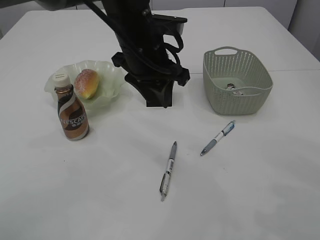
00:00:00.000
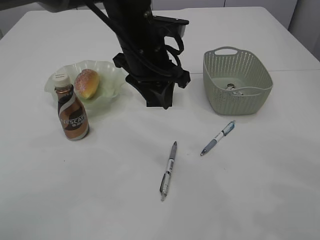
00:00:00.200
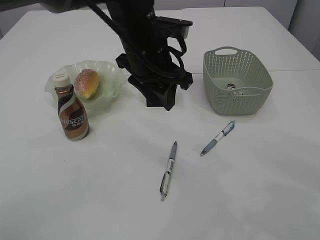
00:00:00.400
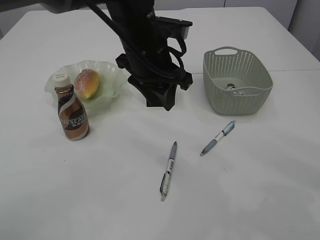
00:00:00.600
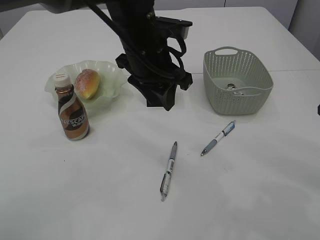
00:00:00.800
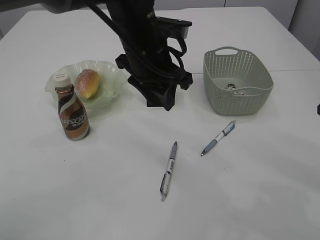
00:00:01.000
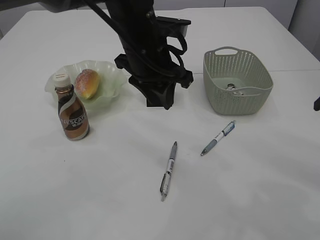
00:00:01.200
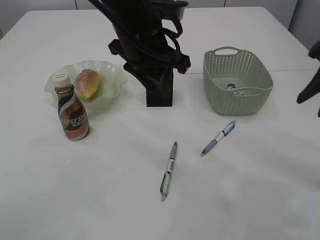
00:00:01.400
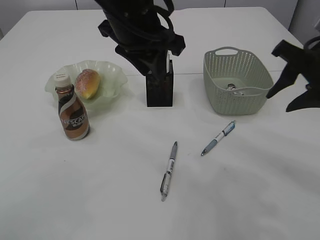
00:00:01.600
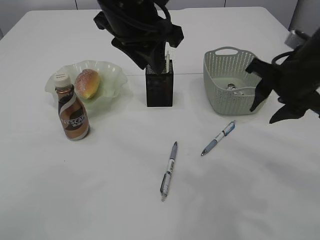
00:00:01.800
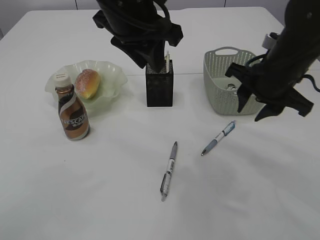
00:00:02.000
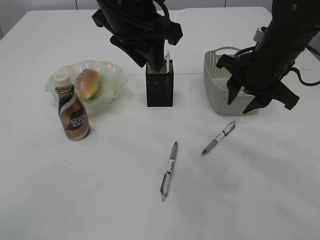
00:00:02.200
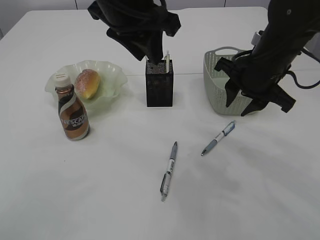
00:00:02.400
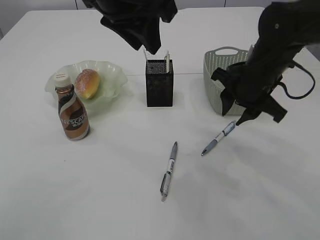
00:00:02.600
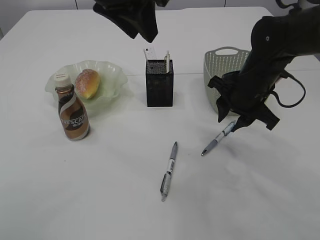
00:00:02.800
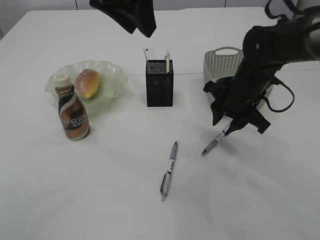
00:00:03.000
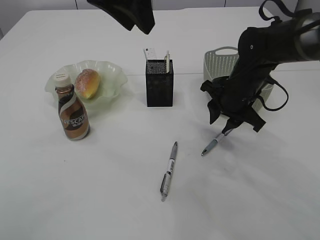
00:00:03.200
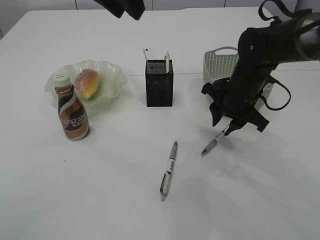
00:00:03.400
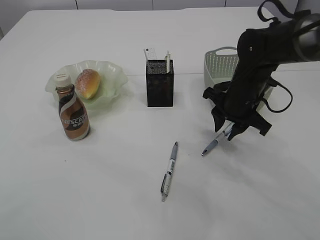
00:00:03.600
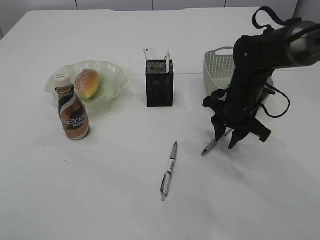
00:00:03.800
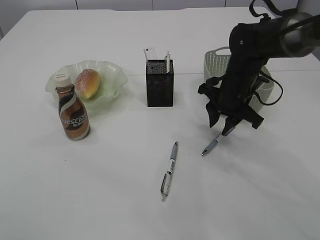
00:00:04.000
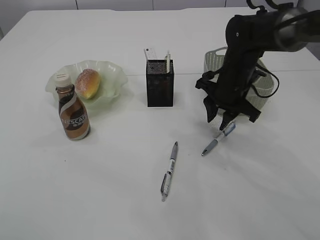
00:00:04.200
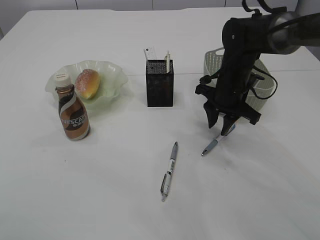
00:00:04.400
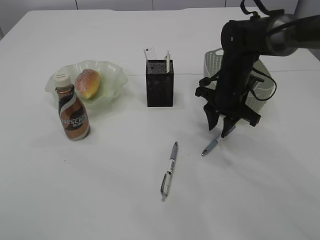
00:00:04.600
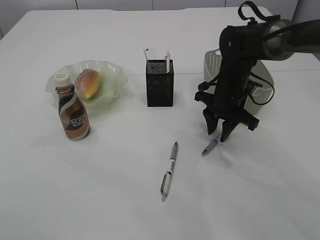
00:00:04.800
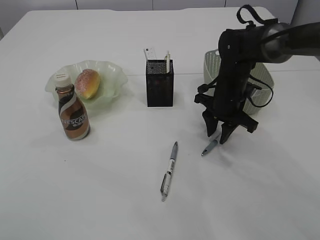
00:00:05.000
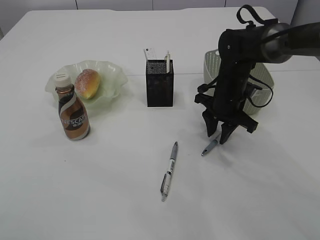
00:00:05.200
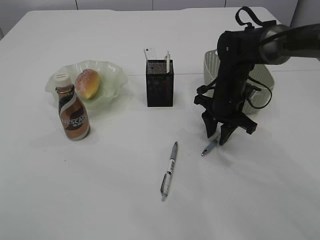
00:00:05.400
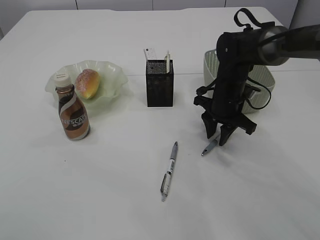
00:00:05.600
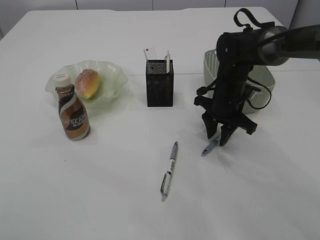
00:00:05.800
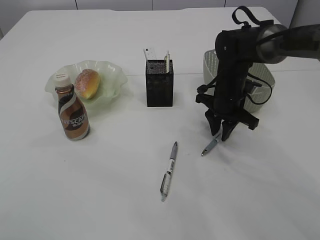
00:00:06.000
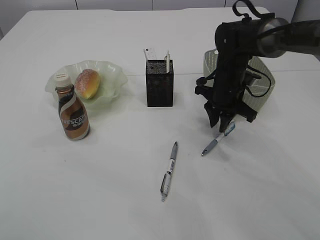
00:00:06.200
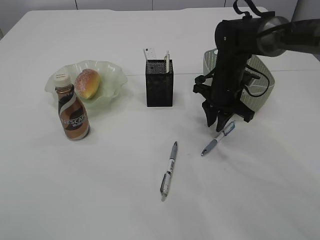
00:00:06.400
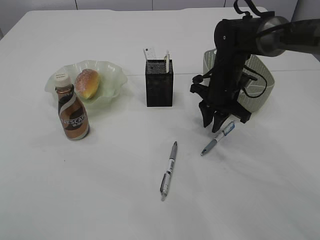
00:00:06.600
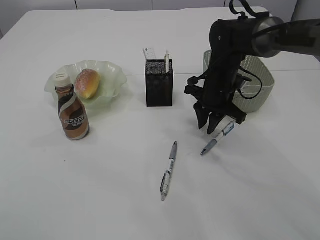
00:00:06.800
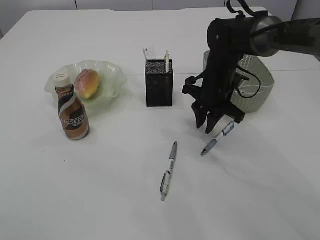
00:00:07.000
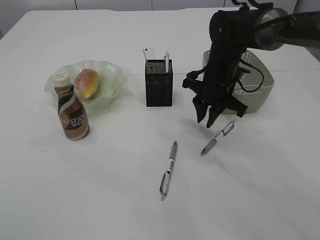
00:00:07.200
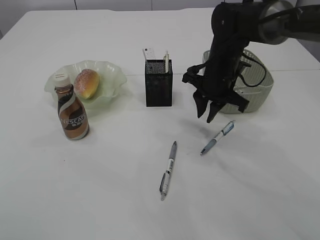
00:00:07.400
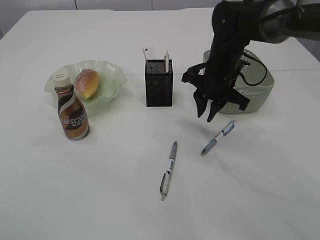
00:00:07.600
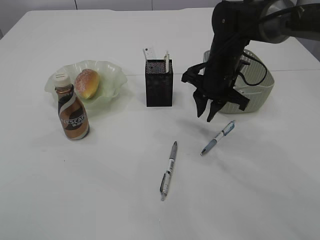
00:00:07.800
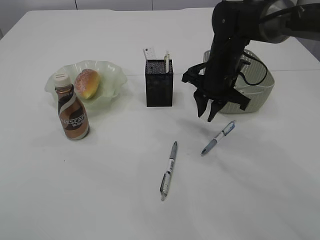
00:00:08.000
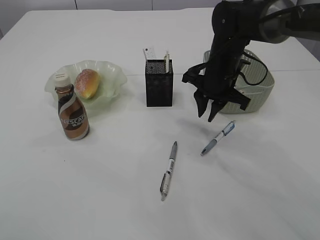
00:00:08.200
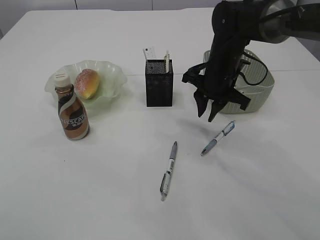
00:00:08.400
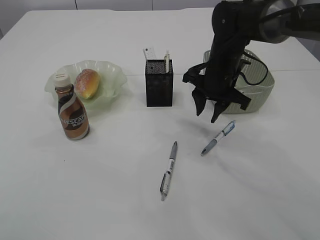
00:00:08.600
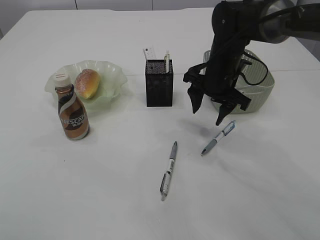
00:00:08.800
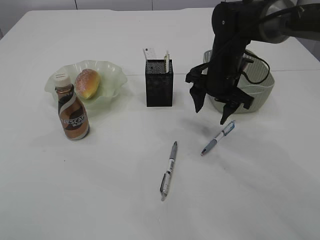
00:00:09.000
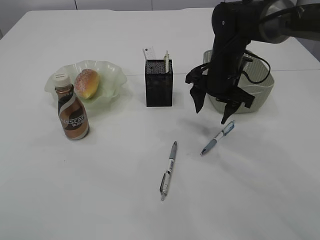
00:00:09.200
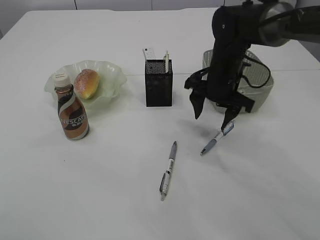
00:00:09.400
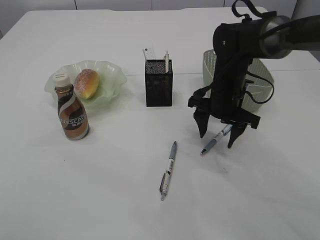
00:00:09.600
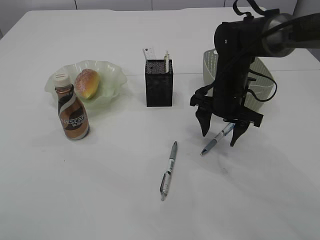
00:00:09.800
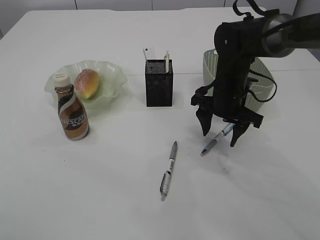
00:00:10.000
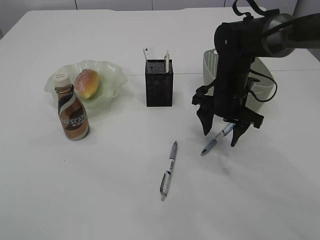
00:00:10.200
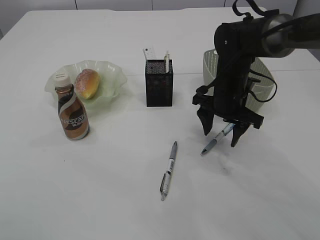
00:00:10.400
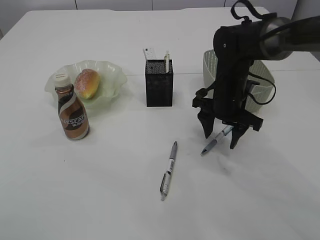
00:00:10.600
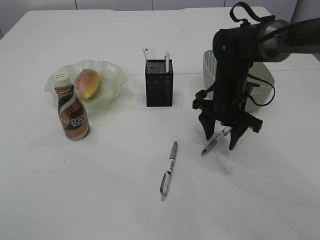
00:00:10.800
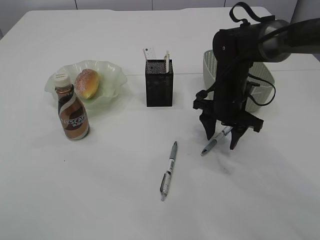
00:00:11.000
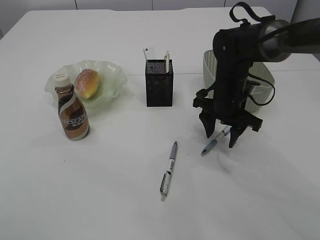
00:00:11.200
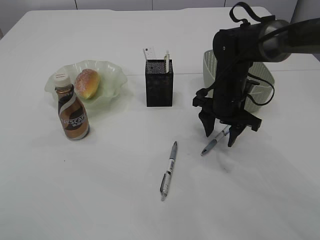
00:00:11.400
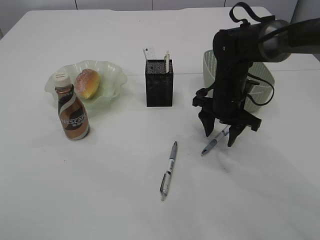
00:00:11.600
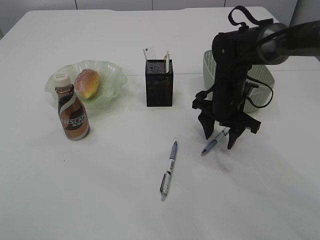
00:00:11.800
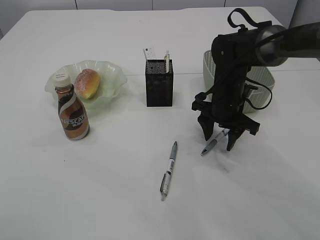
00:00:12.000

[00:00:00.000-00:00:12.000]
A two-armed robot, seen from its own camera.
00:00:00.000 to 00:00:01.600: The left gripper is displaced upward by approximately 5 cm; the right gripper moves to the left, some 10 cm.
00:00:01.600 to 00:00:03.000: The right gripper goes some 15 cm downward, to the left and forward. The left gripper travels upward by roughly 5 cm.
00:00:03.000 to 00:00:04.400: The left gripper moves upward and to the left, about 10 cm.
00:00:04.400 to 00:00:06.000: There are only small adjustments of the grippers.
00:00:06.000 to 00:00:07.600: The right gripper shifts about 5 cm upward.
00:00:07.600 to 00:00:09.000: The right gripper opens.
00:00:09.000 to 00:00:12.000: There are only small adjustments of the grippers.

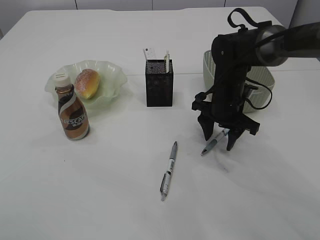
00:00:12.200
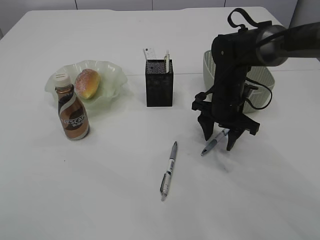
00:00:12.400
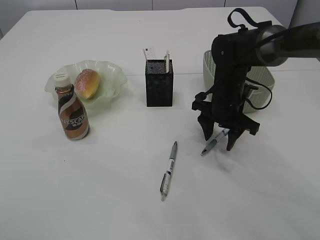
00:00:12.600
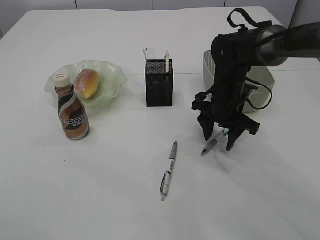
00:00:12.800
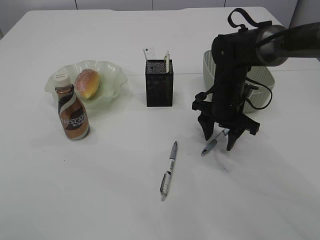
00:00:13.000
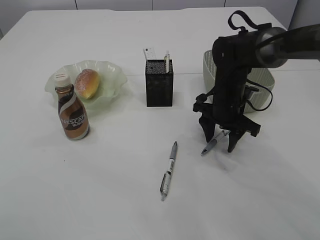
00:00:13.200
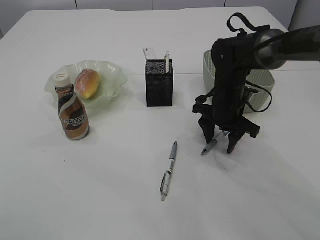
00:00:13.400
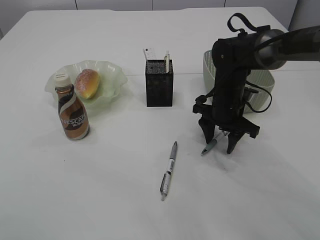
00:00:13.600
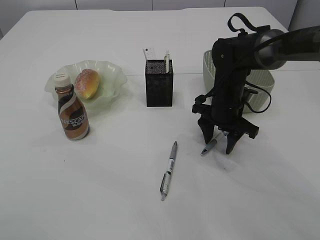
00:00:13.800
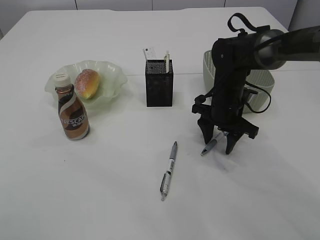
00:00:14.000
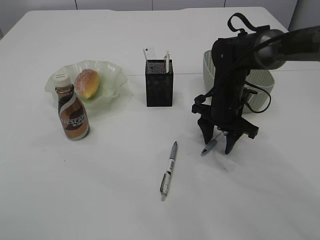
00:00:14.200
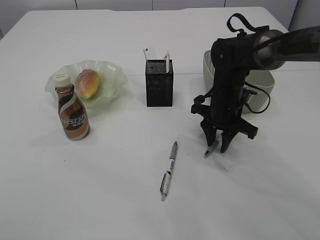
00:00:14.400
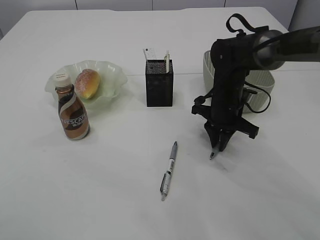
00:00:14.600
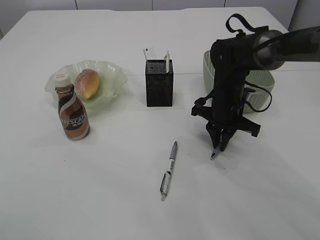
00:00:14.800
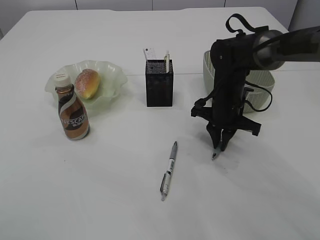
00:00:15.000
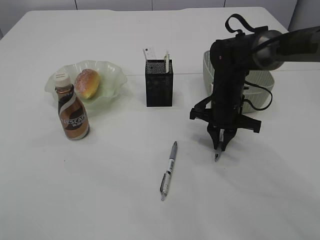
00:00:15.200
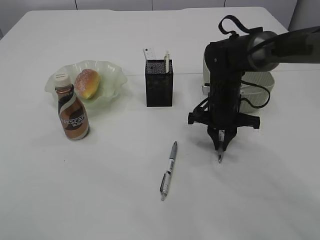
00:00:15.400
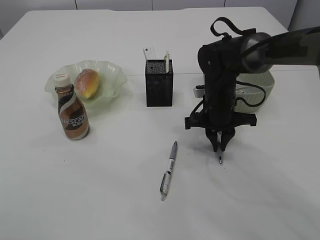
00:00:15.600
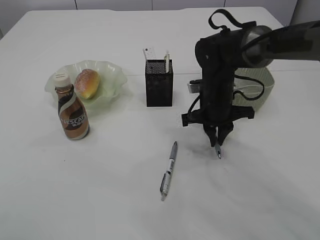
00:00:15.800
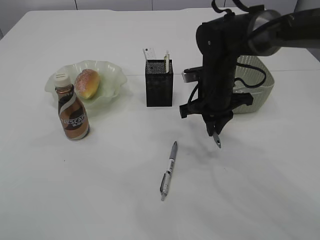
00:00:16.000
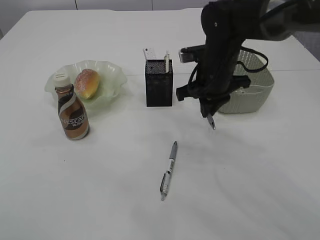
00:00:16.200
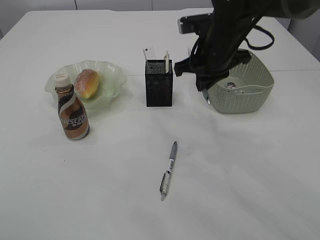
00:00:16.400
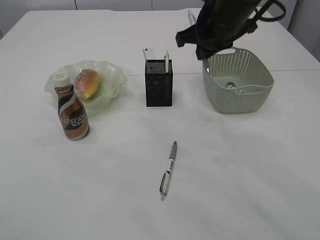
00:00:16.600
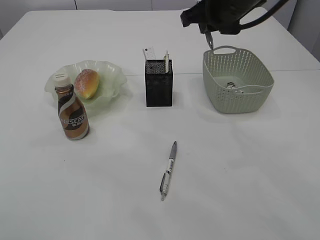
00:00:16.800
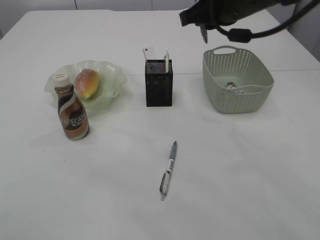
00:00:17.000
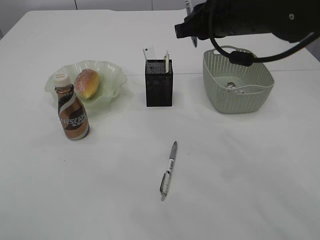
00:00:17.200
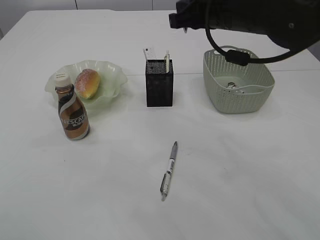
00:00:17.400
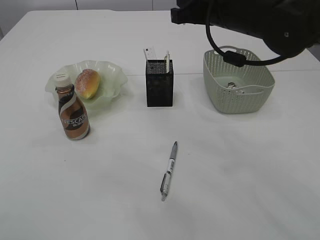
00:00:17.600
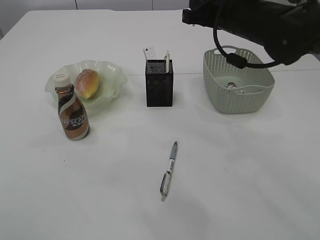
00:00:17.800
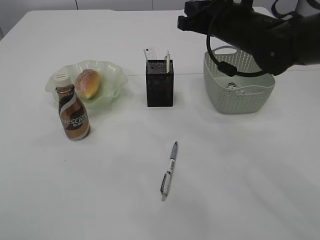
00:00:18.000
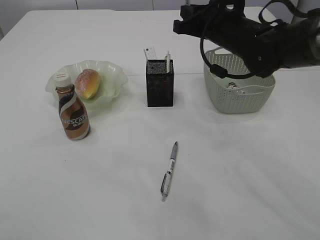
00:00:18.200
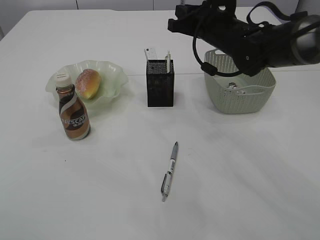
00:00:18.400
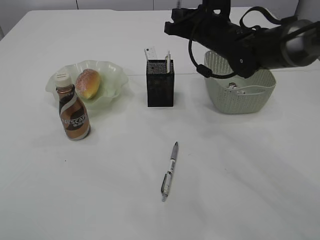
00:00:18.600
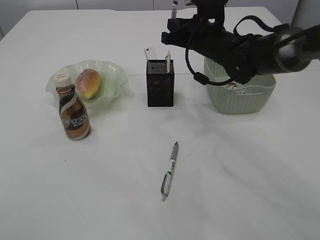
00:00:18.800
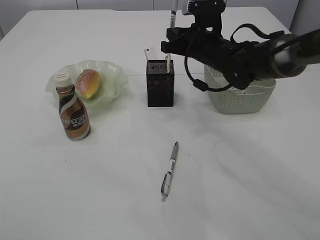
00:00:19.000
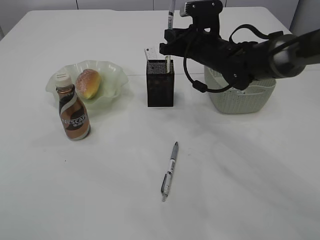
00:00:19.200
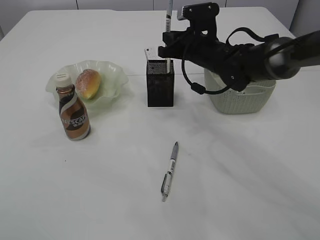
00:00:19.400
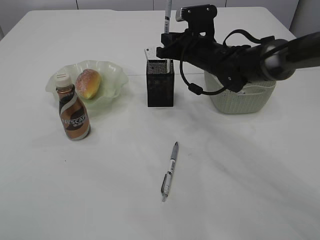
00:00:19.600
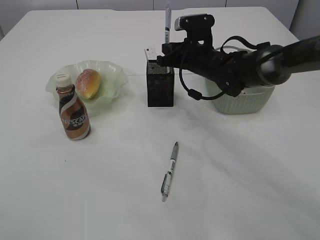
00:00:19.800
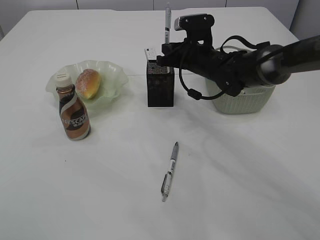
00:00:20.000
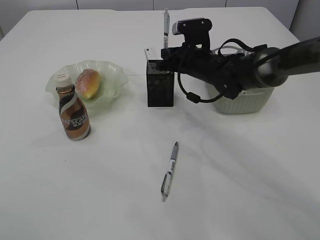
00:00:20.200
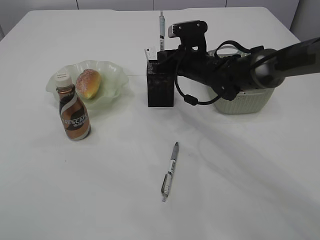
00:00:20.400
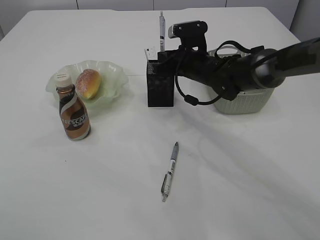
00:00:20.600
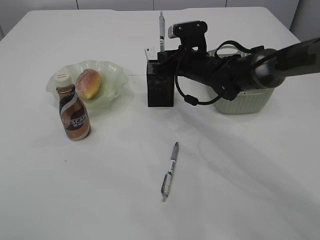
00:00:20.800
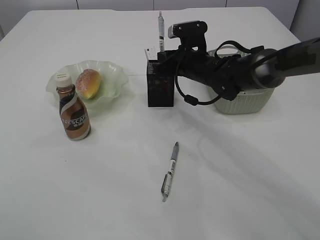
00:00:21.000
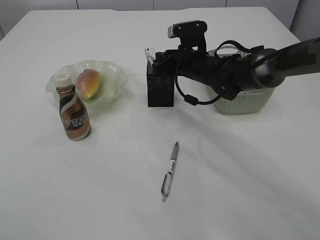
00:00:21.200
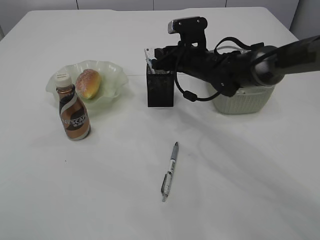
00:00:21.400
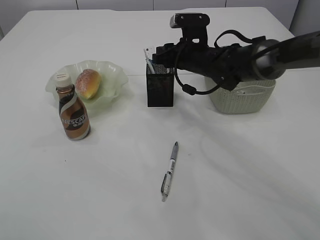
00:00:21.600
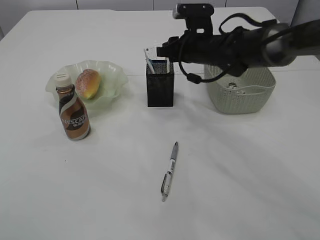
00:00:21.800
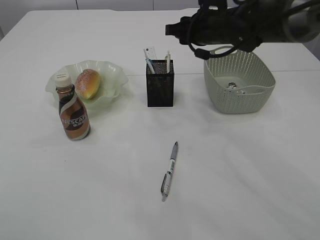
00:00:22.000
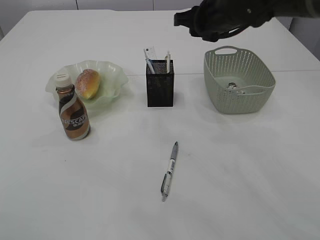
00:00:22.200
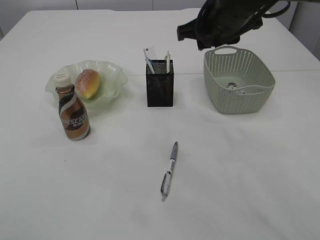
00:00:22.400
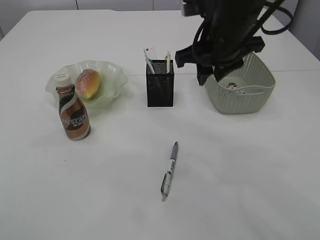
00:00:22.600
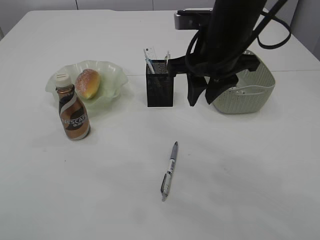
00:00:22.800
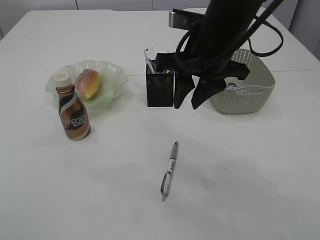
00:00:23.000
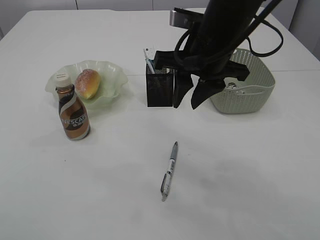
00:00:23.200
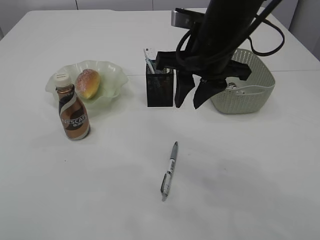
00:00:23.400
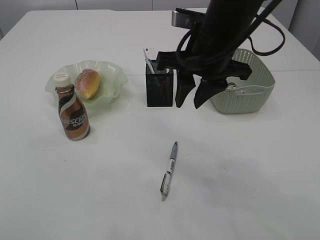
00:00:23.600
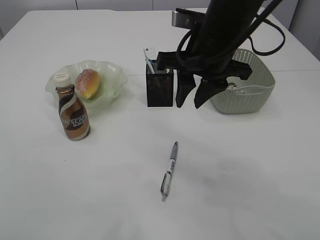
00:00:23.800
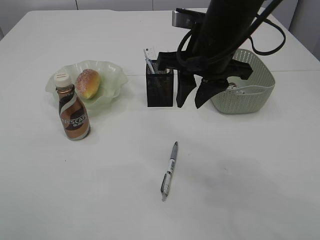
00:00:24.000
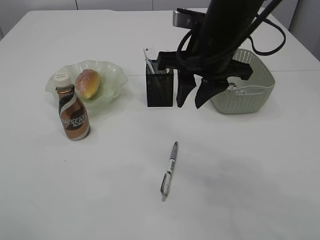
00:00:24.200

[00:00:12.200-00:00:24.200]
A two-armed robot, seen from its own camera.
Step, 00:00:12.200 to 00:00:16.200: Pick up the pen with right arm.
Step, 00:00:16.400 to 00:00:22.000: Place the pen into the pen holder.
00:00:12.200 to 00:00:13.800: The two grippers keep their place.
00:00:13.800 to 00:00:15.200: The right gripper closes its fingers.
00:00:15.200 to 00:00:16.600: The right gripper moves upward, some 15 cm.
00:00:18.200 to 00:00:19.800: The right gripper shifts about 10 cm downward and forward.
00:00:19.800 to 00:00:21.200: There are only small adjustments of the grippers.
00:00:21.200 to 00:00:22.600: The right gripper is displaced upward and backward by roughly 15 cm.
00:00:22.600 to 00:00:24.200: The left gripper goes some 15 cm to the left and backward.
